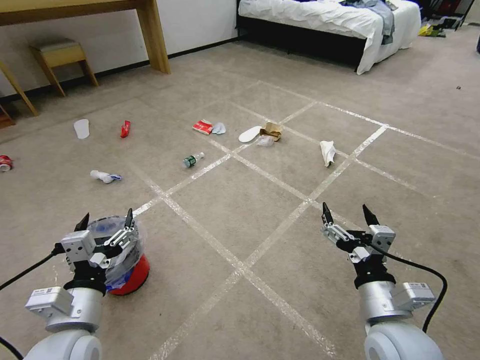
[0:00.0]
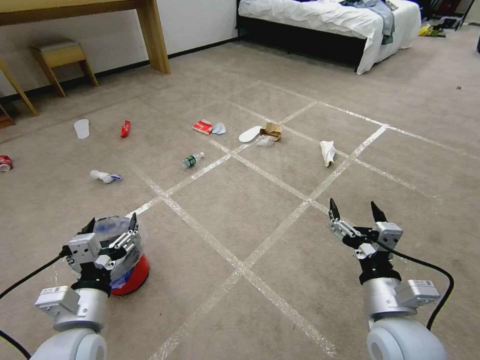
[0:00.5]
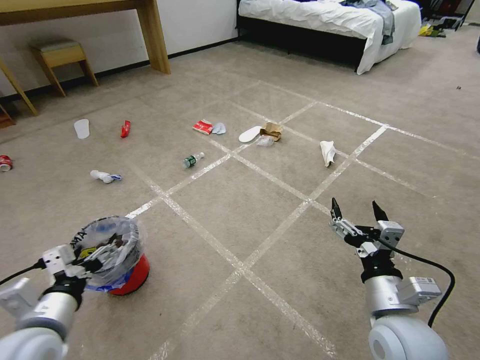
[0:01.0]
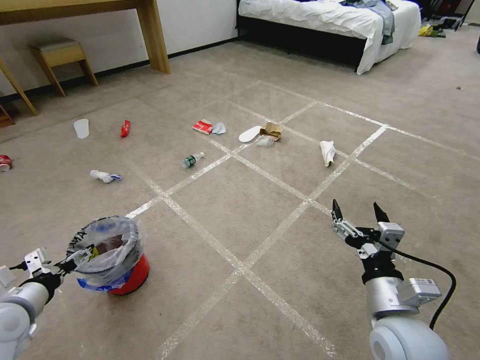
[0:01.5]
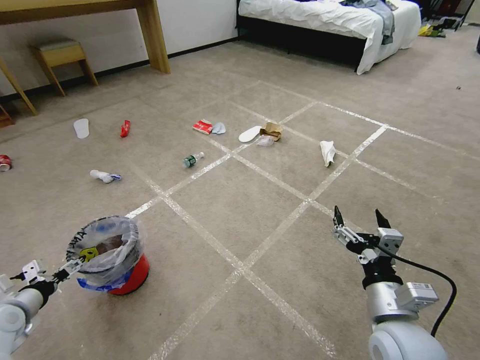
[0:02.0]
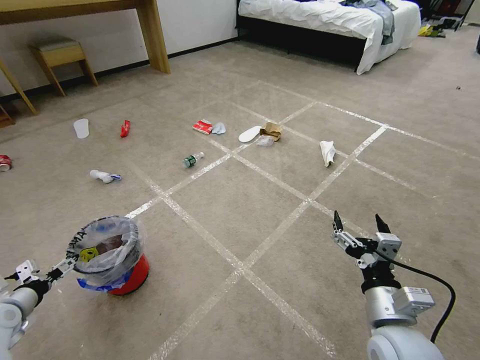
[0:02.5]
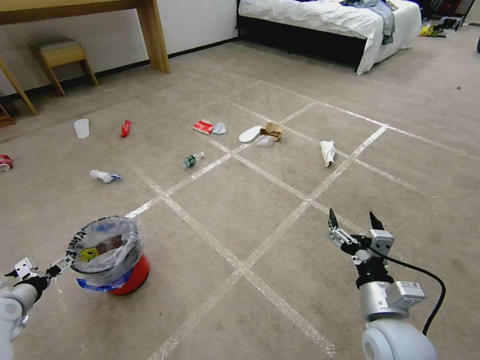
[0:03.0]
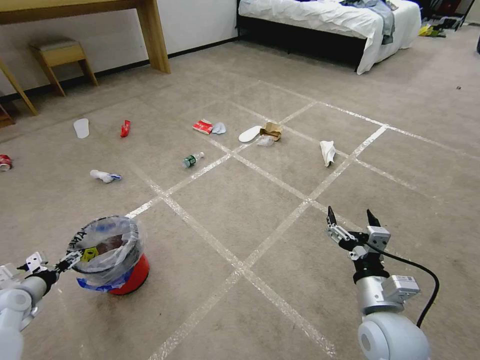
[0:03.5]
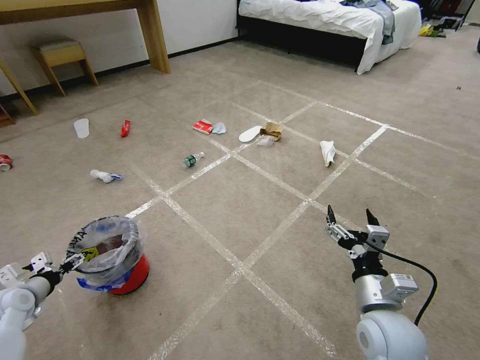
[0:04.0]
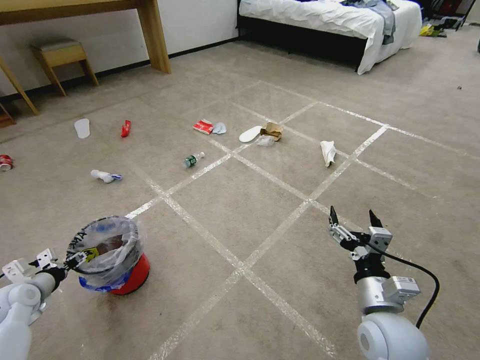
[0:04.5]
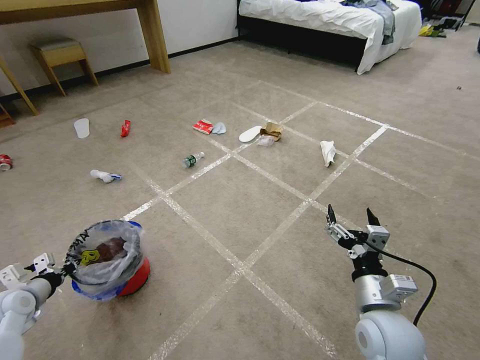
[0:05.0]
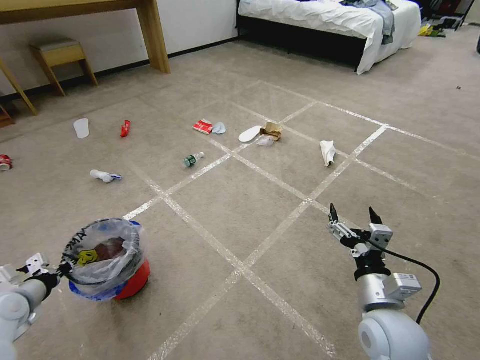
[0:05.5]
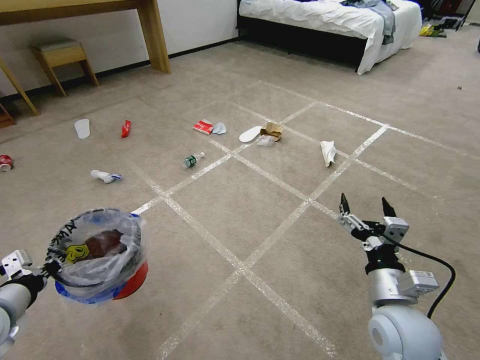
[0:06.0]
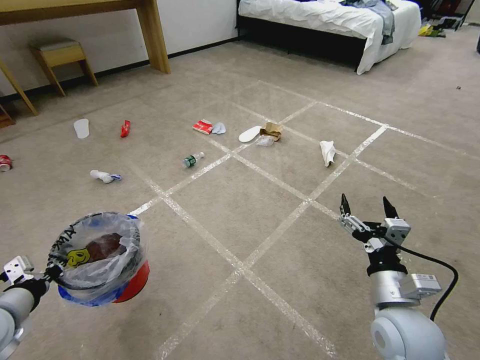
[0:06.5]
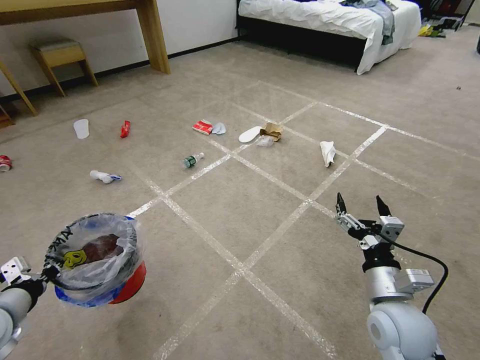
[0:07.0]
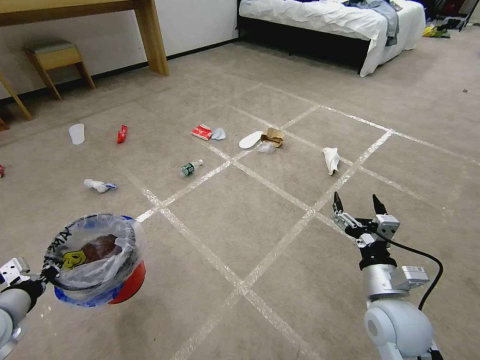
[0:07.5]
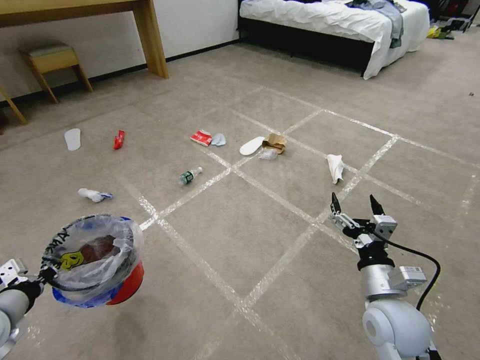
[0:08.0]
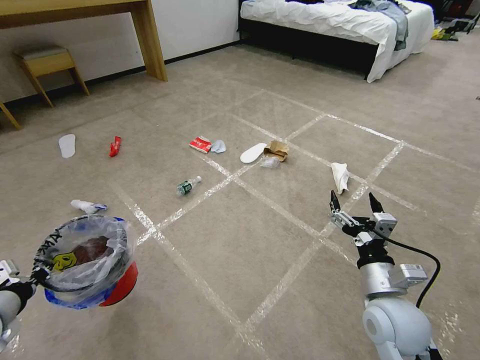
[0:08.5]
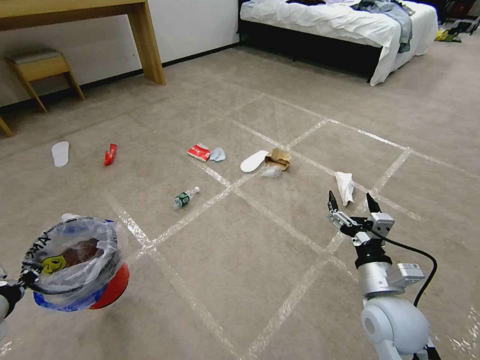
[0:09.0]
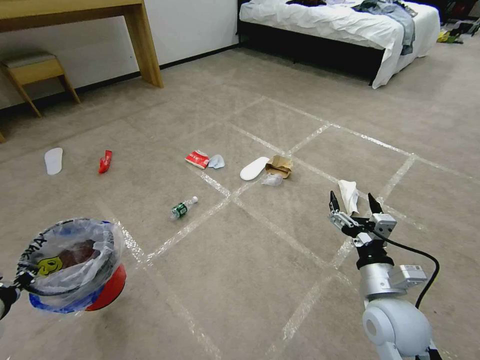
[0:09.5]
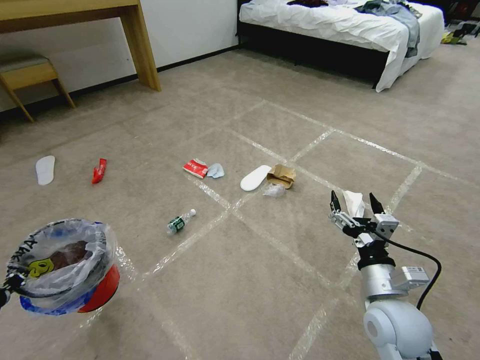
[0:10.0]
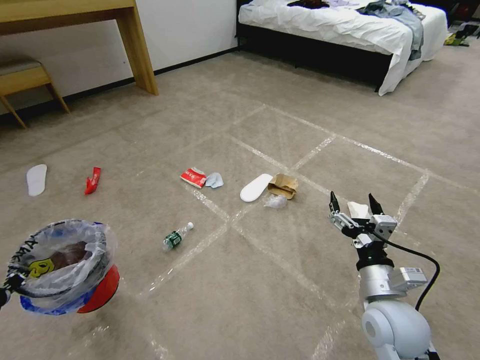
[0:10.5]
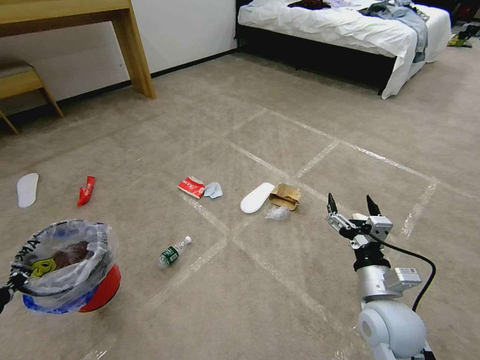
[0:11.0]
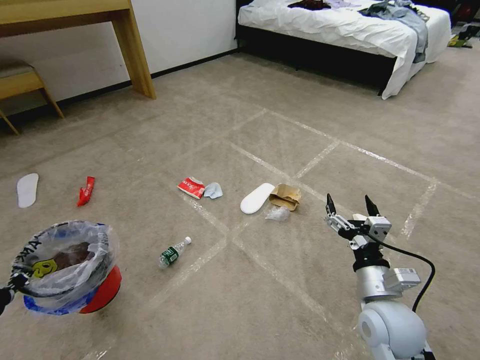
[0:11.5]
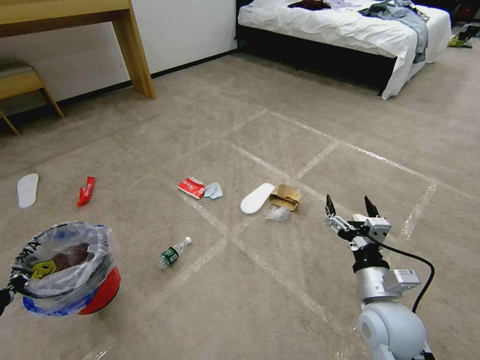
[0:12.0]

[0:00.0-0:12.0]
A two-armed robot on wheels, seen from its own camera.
Task of the whole recording: Pick up the trash bin and place the garbage on the floor into it.
0:02.0 to 0:04.0: The left gripper shifts by approximately 5 cm.
0:04.0 to 0:06.0: The left gripper travels upward, to the right and backward by roughly 20 cm, and closes its fingers.
0:06.0 to 0:08.0: The grippers stay close to where they were, moving slightly.
0:08.0 to 0:10.0: The left gripper ends up approximately 5 cm from where it was.
0:10.0 to 0:12.0: Both grippers stay put.

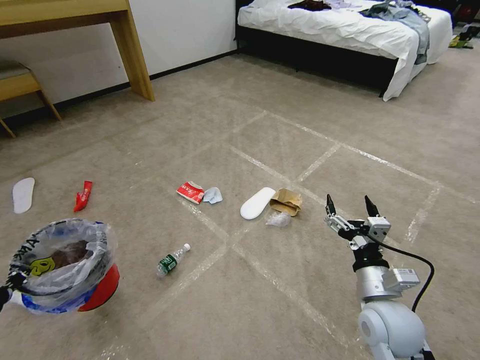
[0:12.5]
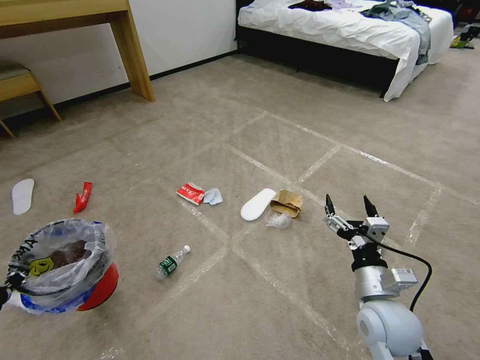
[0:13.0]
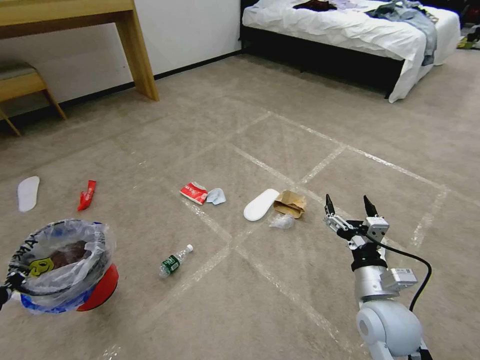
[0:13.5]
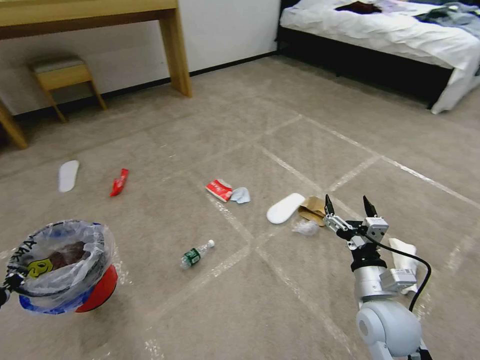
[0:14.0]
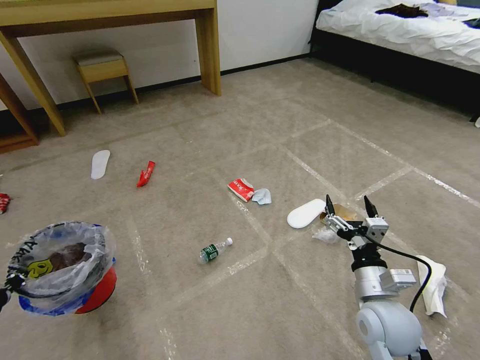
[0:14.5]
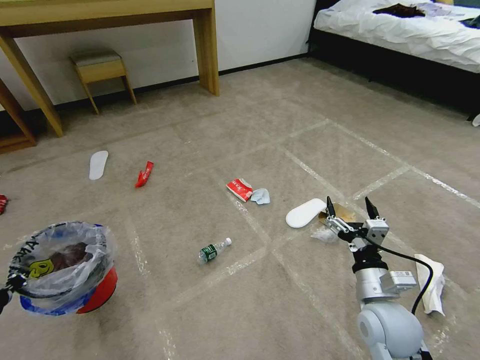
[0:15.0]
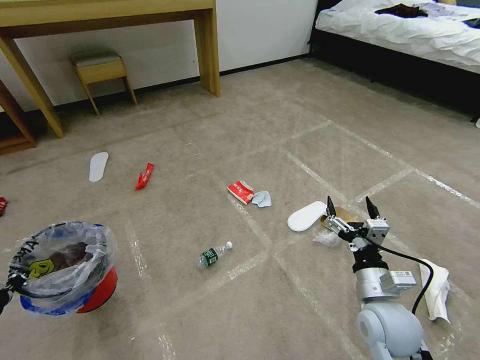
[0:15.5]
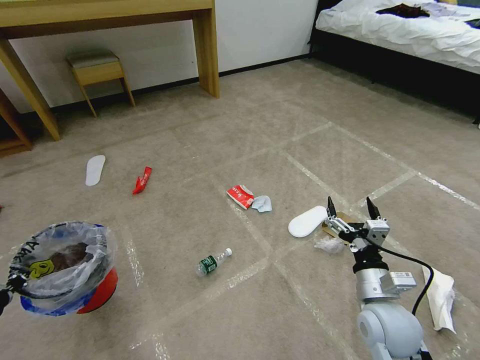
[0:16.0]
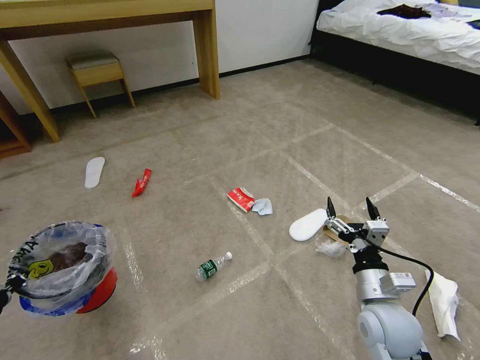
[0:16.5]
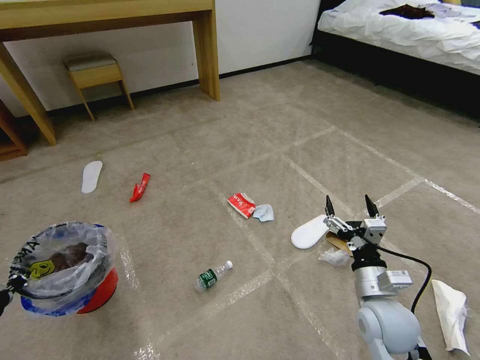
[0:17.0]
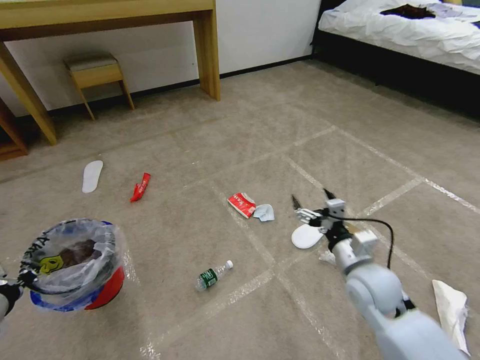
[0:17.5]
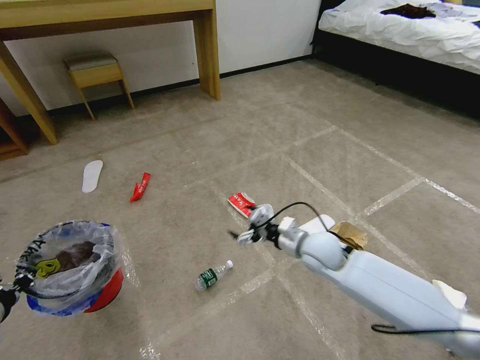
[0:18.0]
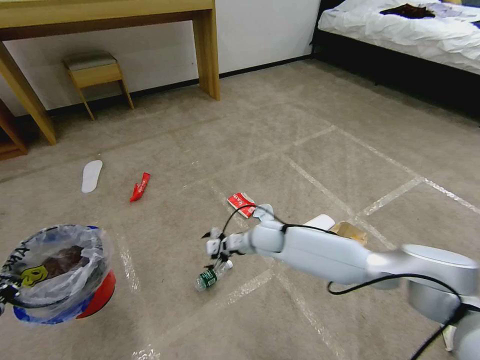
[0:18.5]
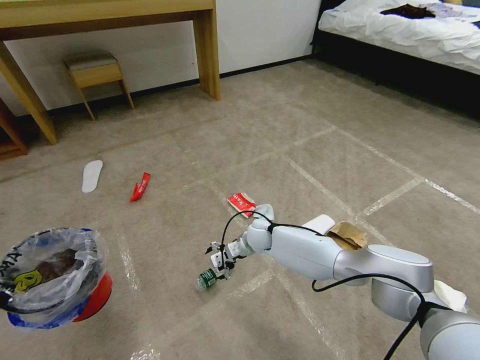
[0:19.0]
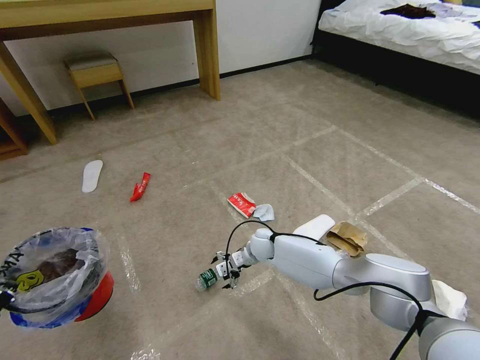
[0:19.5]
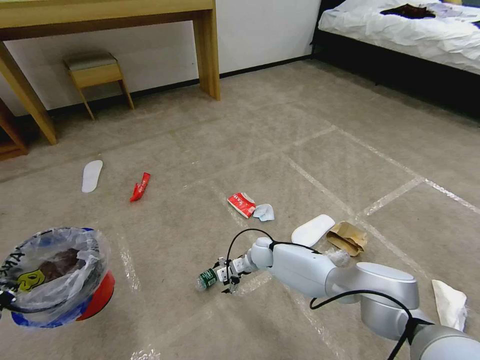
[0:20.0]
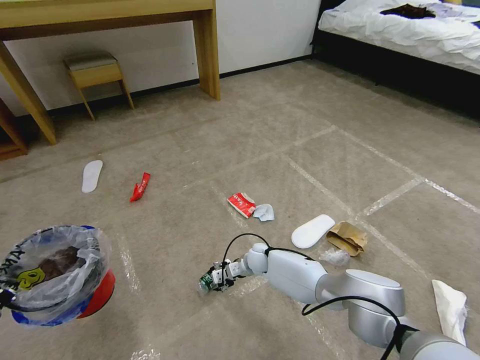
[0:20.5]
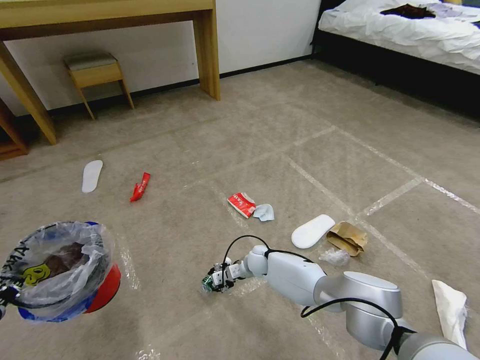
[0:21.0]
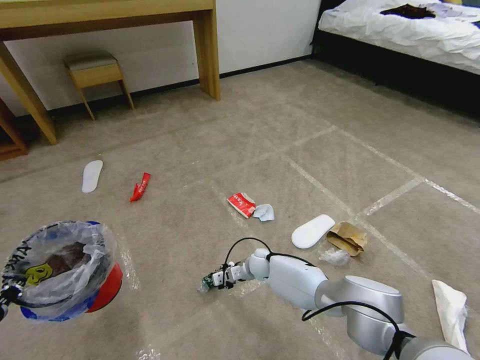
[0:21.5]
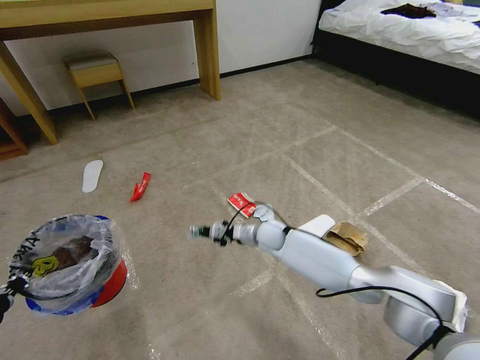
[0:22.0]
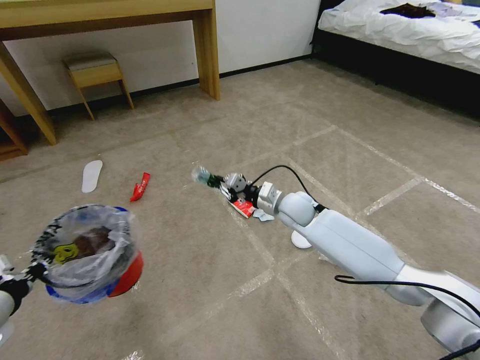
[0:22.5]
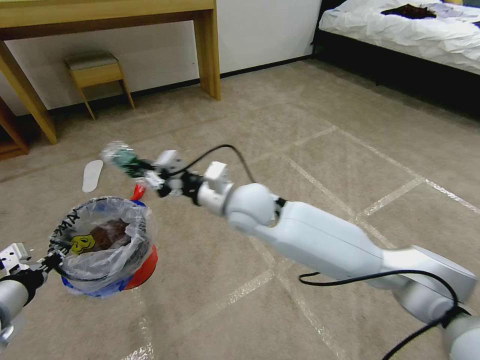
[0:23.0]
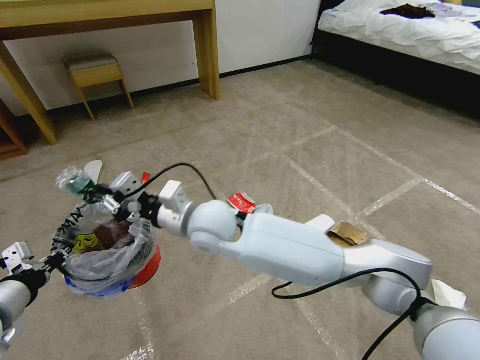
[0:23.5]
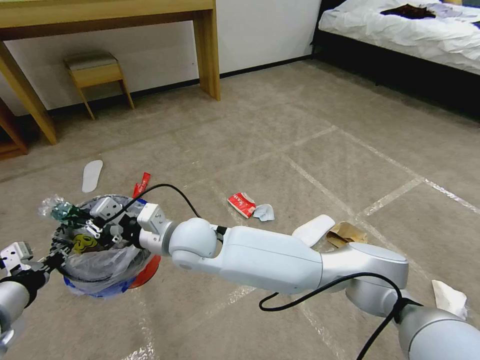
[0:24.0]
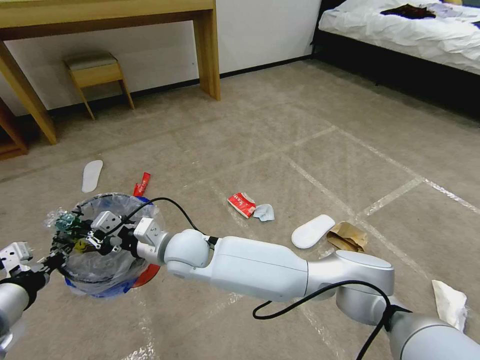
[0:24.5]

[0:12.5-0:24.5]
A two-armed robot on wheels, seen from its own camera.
Task of the whole recording: Pick up the trash bin and place the garbage on the floor into it.
0:14.5 to 0:16.5: The two grippers keep their place.
0:16.5 to 0:18.5: The right gripper is displaced forward and to the left by some 30 cm.
0:18.5 to 0:20.5: The right gripper goes some 15 cm downward.
0:20.5 to 0:22.5: The right gripper goes some 25 cm upward, and closes. The left gripper changes place by roughly 5 cm.
0:22.5 to 0:24.5: The right gripper shifts approximately 30 cm to the left and backward. The left gripper moves about 5 cm.

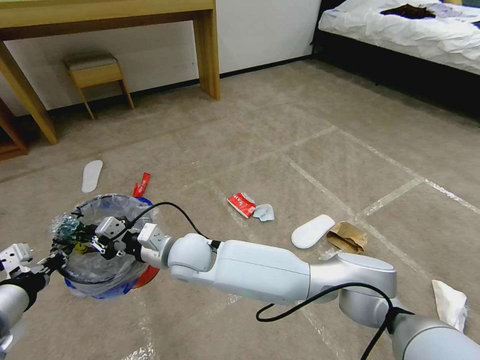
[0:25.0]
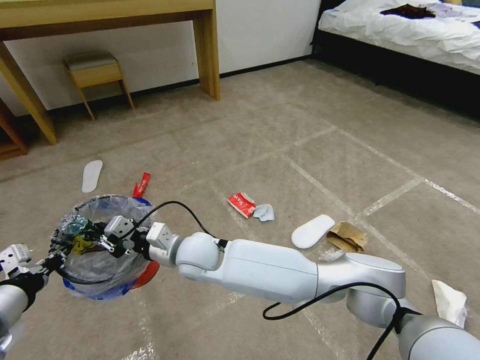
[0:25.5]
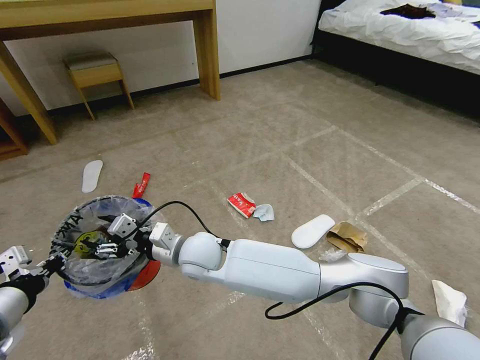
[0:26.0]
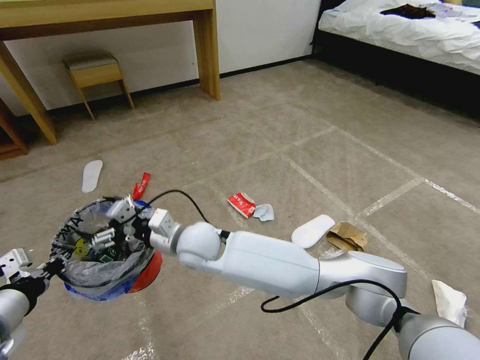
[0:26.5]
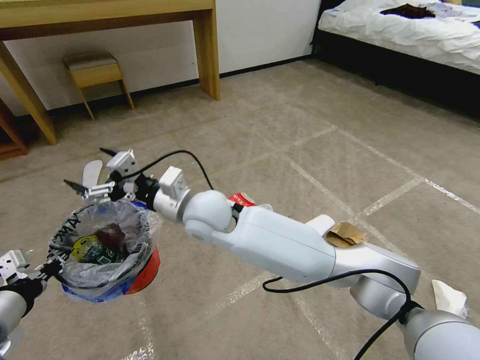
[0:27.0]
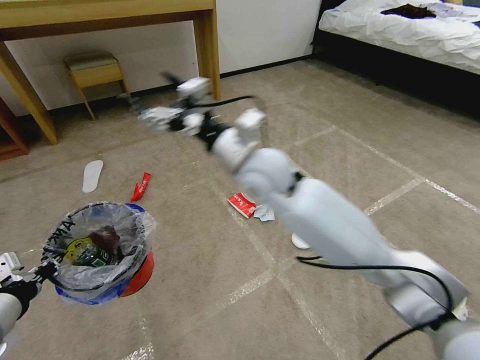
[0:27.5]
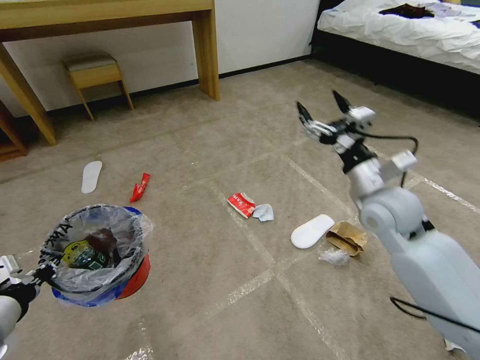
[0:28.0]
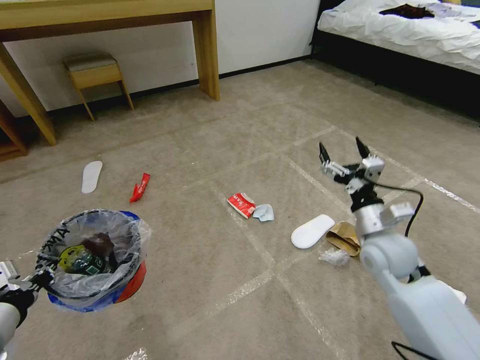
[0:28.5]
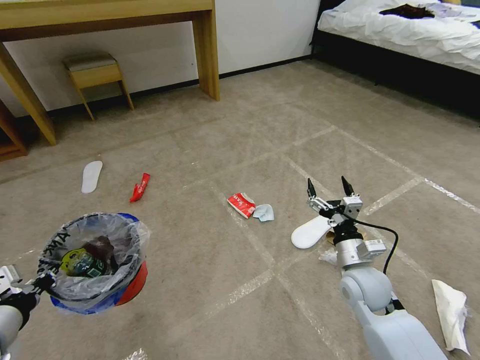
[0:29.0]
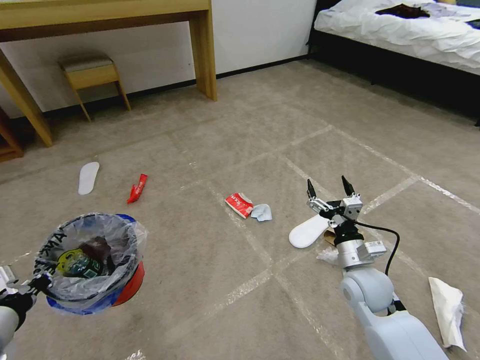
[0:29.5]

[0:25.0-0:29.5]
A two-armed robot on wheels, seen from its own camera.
Task of the whole recording: Pick up the trash bin and place the garbage on the floor into it.
0:25.0 to 0:27.0: The right gripper travels upward by approximately 10 cm, and opens up.
0:27.0 to 0:29.5: The right gripper goes about 40 cm to the right and downward.
